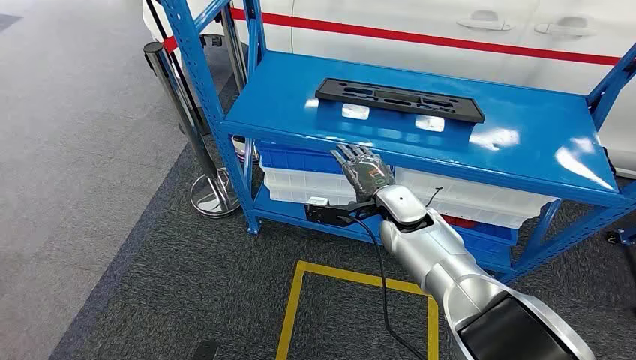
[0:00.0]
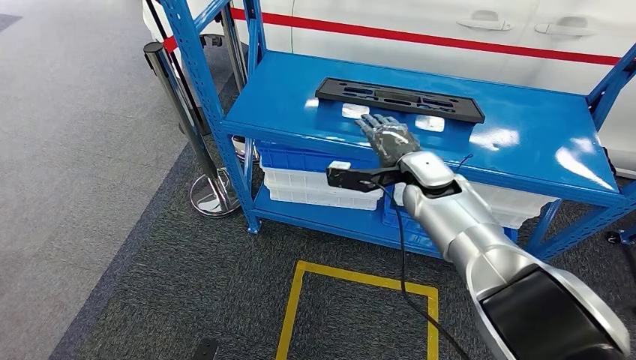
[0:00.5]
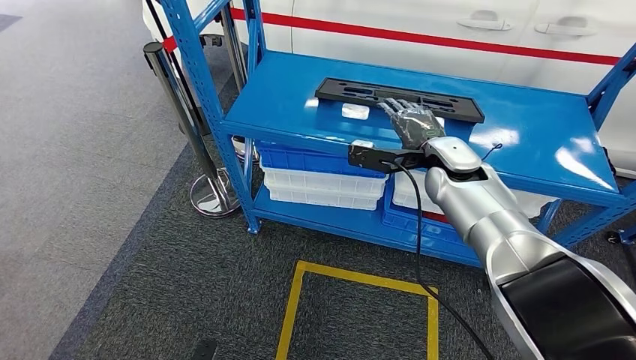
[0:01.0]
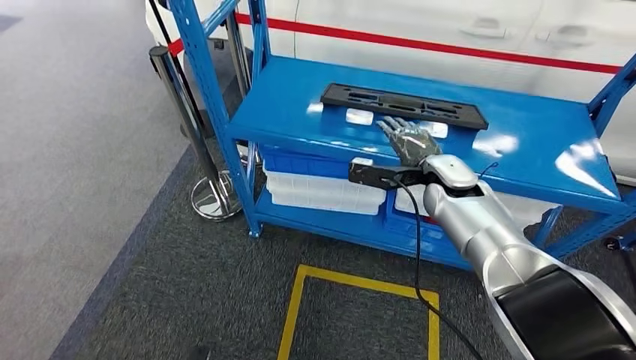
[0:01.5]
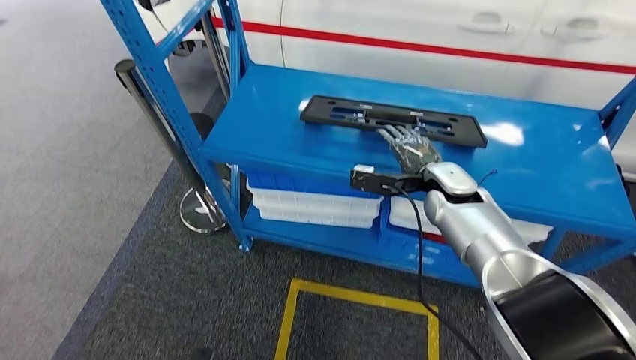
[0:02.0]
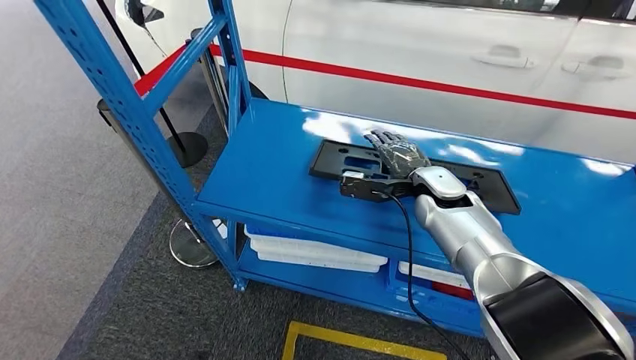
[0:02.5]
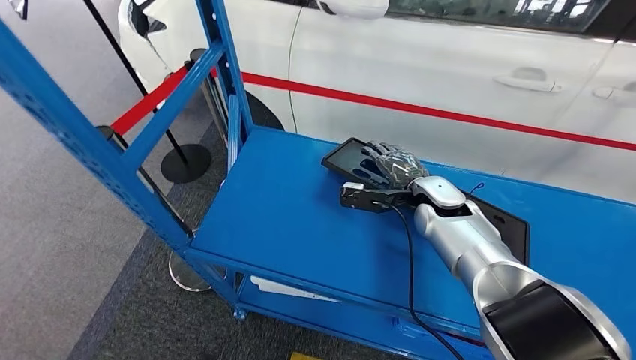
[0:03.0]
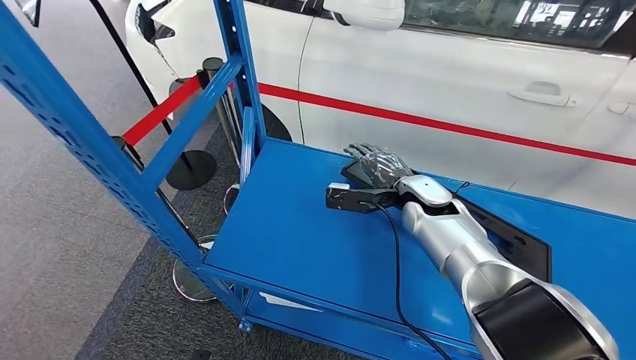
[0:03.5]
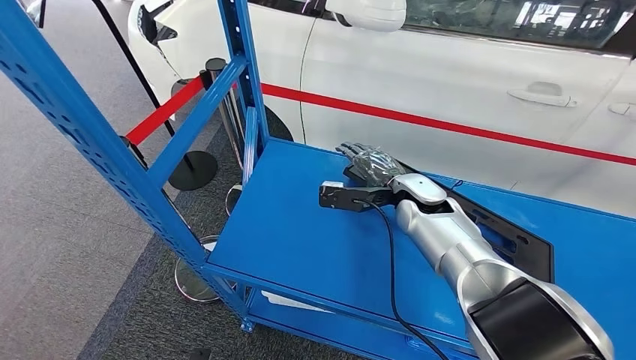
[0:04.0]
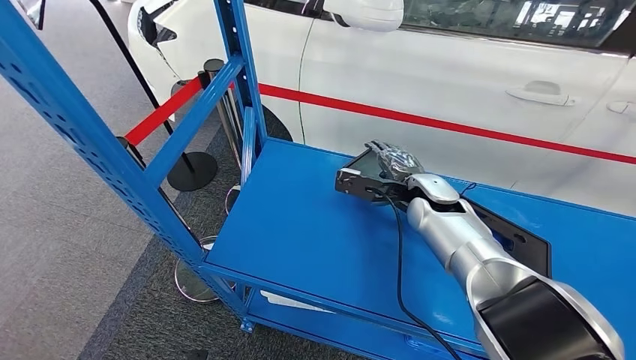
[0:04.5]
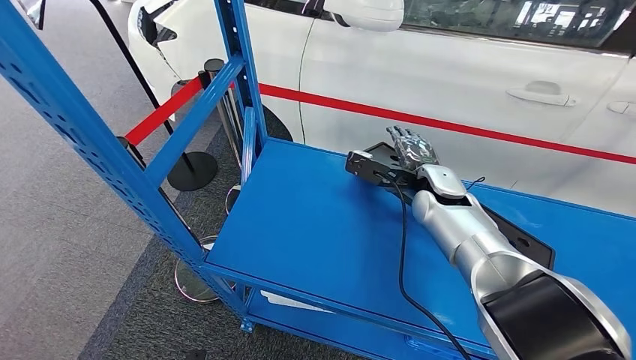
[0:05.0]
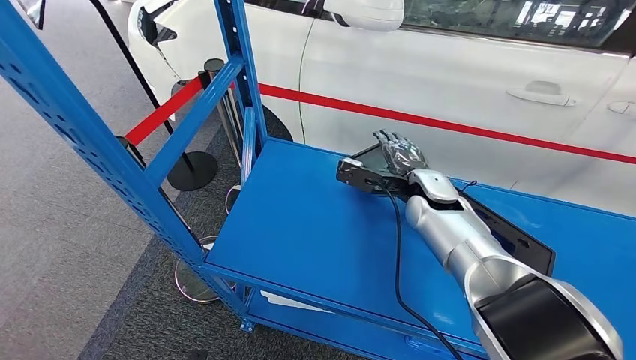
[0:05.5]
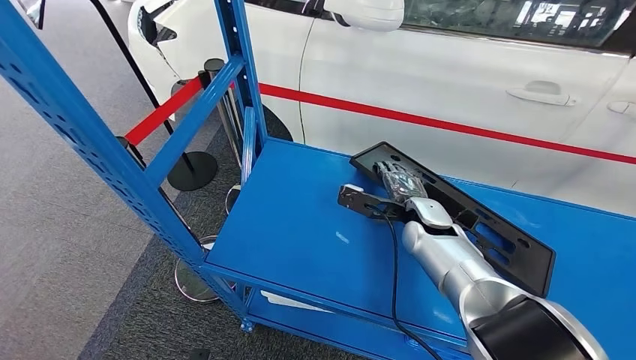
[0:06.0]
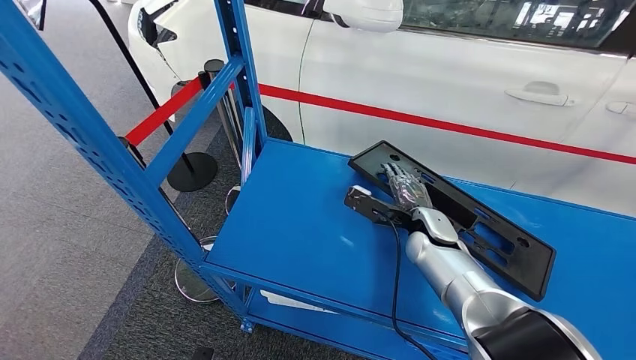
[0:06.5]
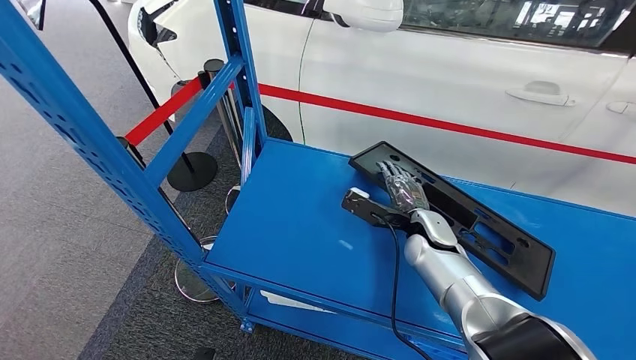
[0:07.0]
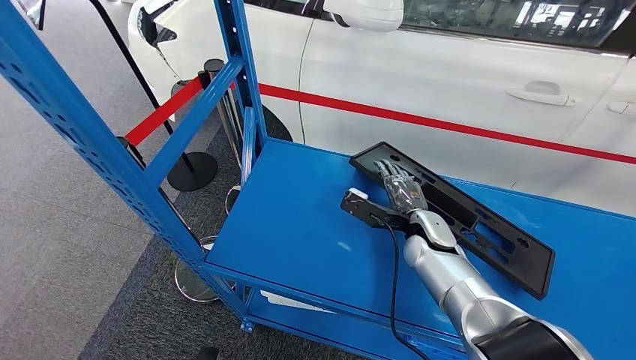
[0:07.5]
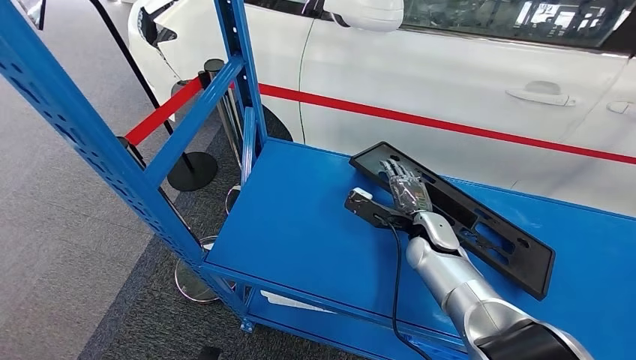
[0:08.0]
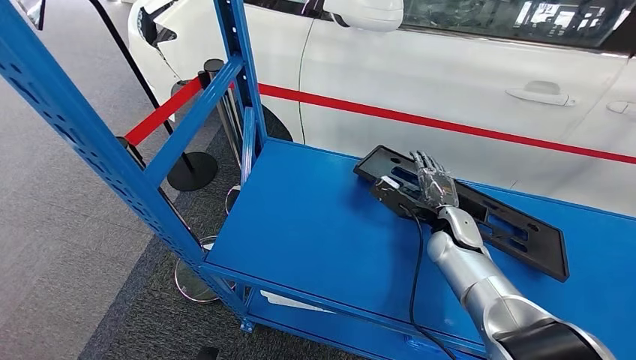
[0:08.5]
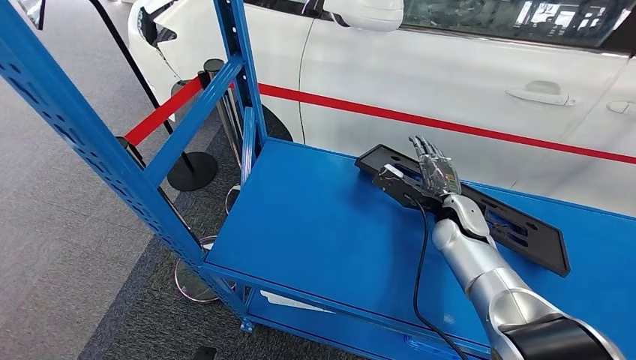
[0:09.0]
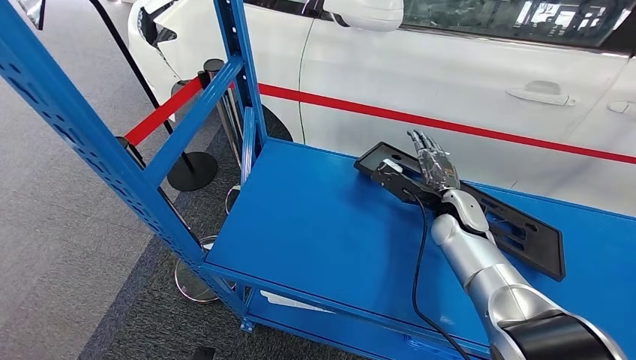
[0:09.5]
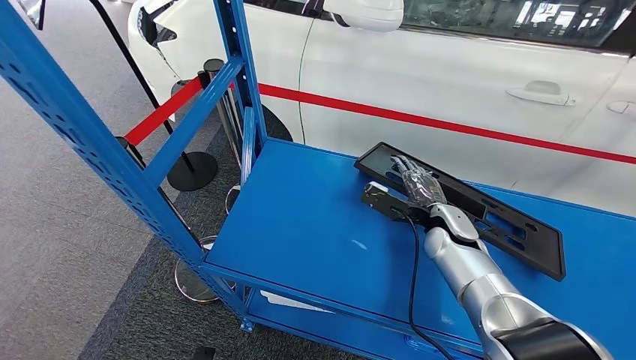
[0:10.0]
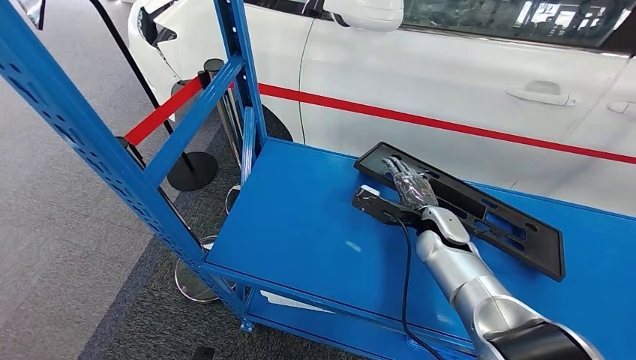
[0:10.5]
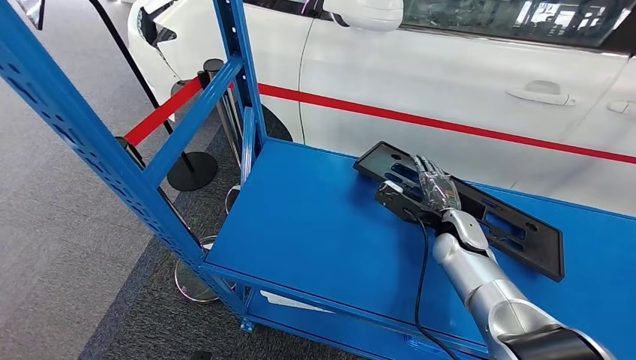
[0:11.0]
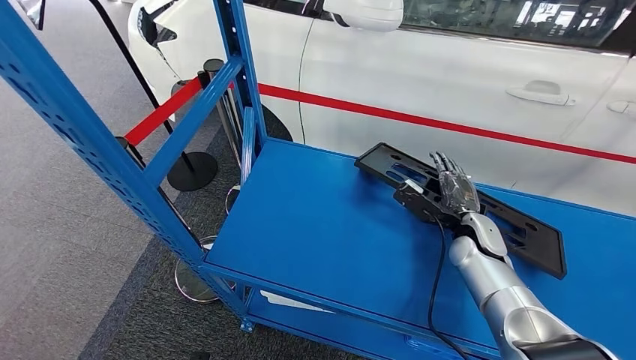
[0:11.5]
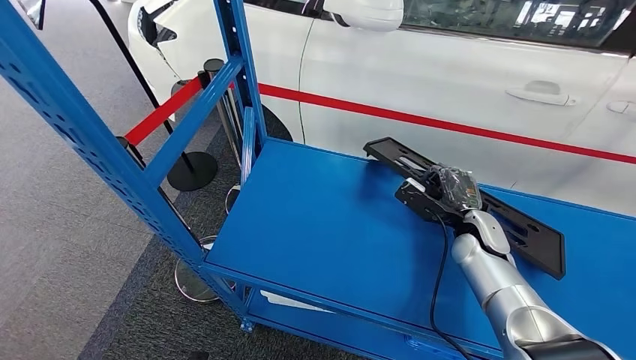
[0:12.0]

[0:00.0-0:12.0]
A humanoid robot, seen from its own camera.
Step, 0:00.0 to 0:04.0: Pick up the large material from the shelf.
0:04.0 to 0:06.0: The right hand moves roughly 5 cm.
0:06.0 to 0:08.0: The hands make only small movements.
0:08.0 to 0:10.0: The hands stay close to where they were, moving slightly.
0:10.0 to 0:12.0: The right hand heads to the right, covering approximately 5 cm.

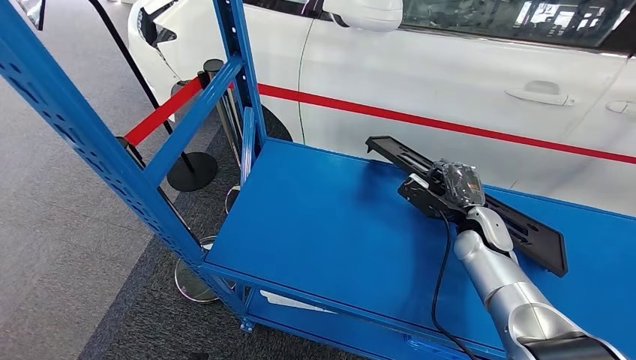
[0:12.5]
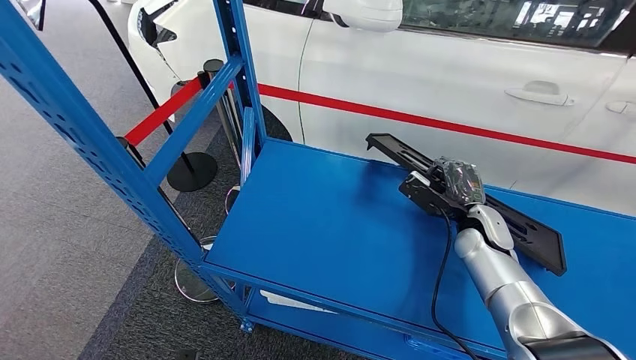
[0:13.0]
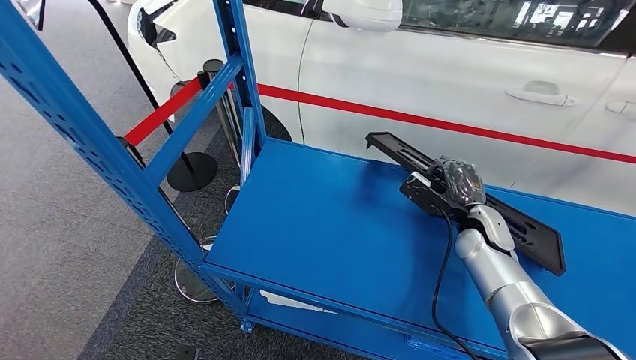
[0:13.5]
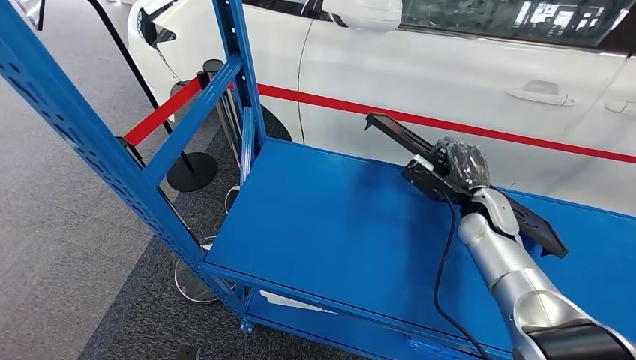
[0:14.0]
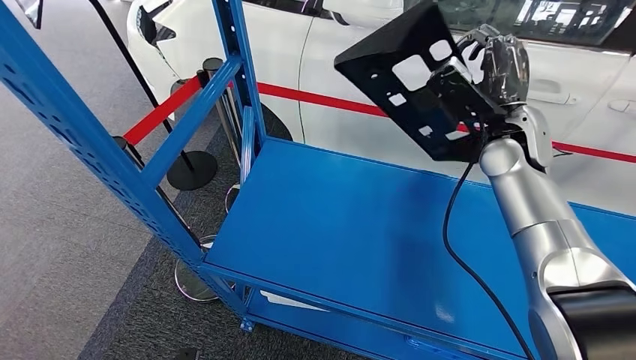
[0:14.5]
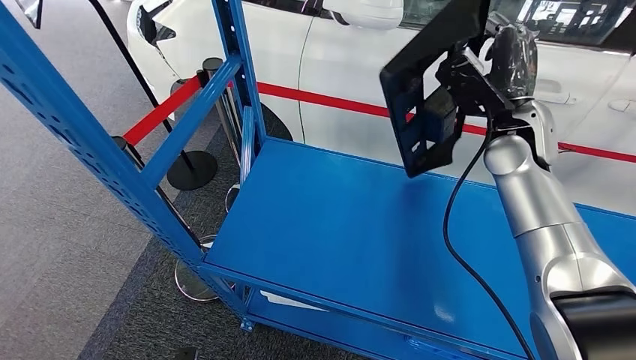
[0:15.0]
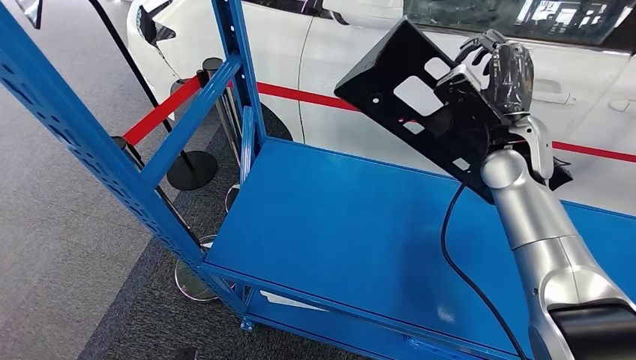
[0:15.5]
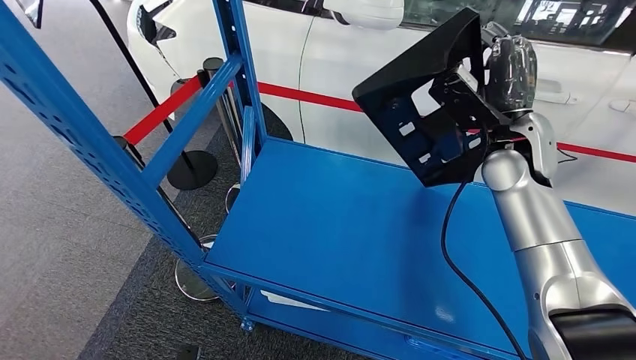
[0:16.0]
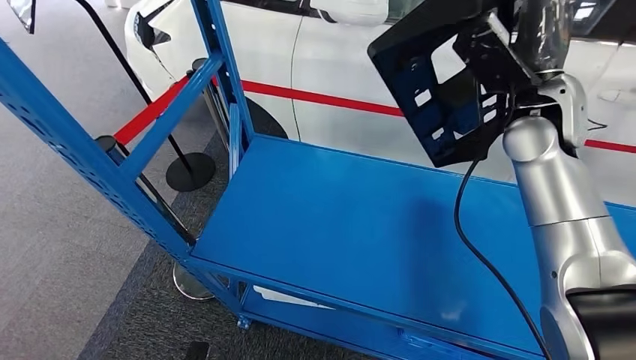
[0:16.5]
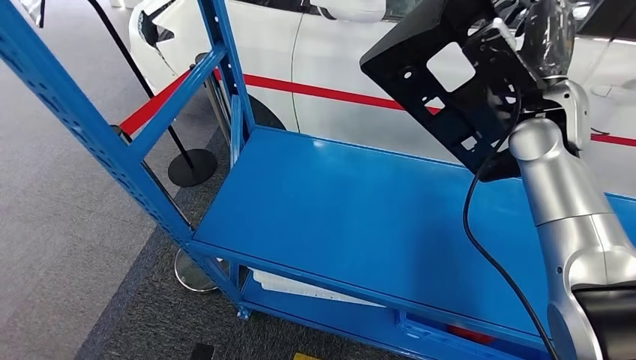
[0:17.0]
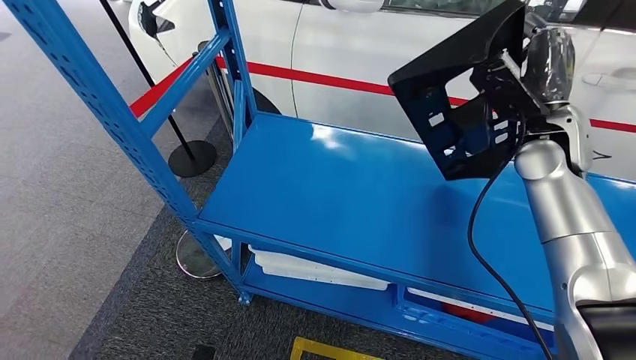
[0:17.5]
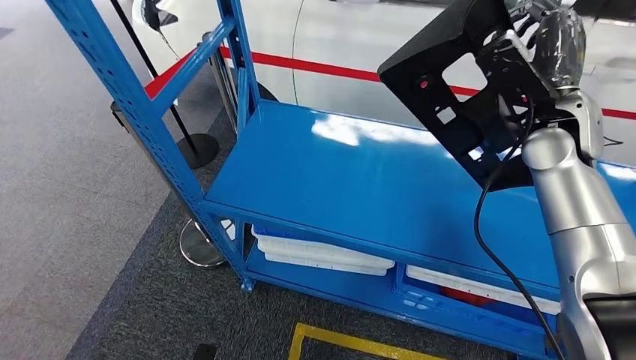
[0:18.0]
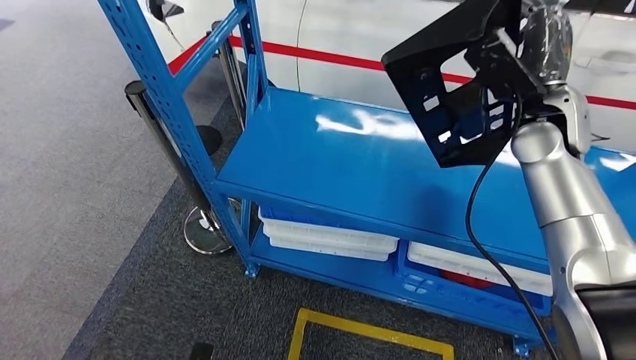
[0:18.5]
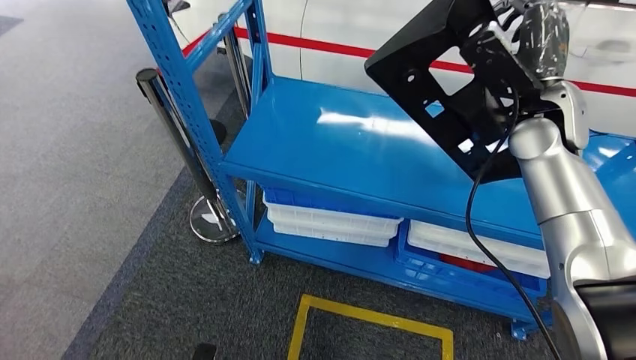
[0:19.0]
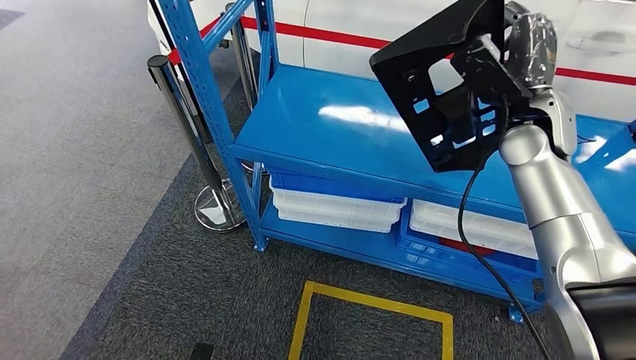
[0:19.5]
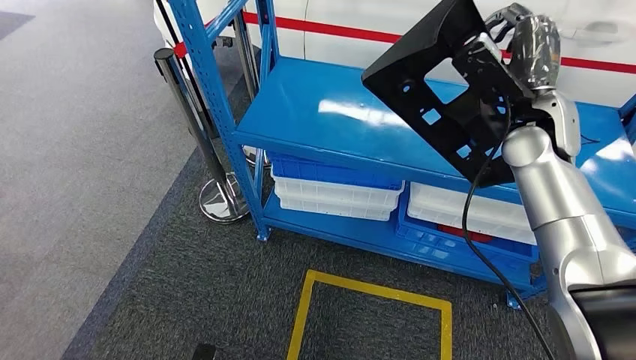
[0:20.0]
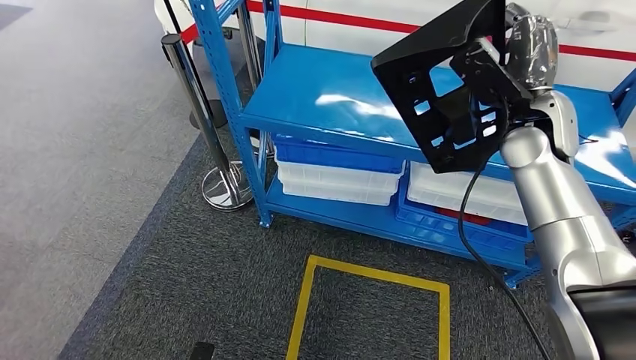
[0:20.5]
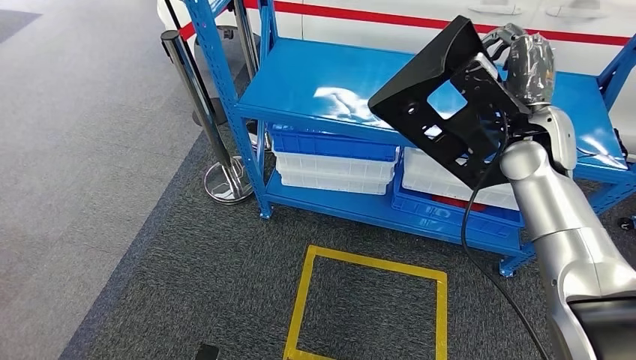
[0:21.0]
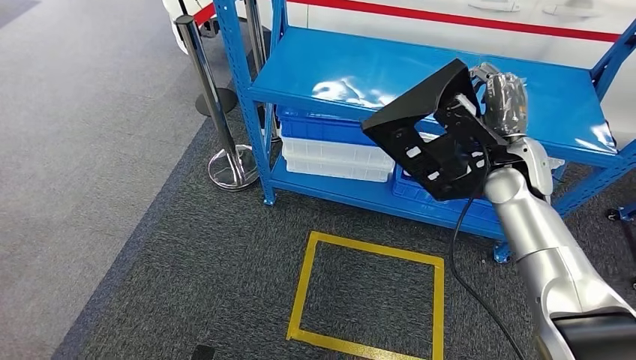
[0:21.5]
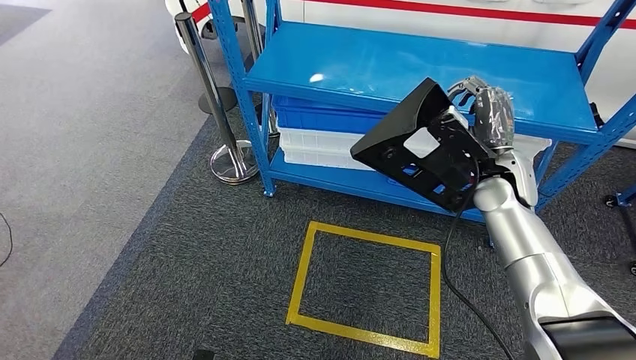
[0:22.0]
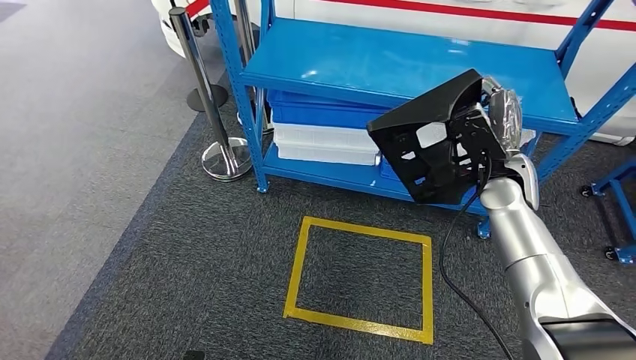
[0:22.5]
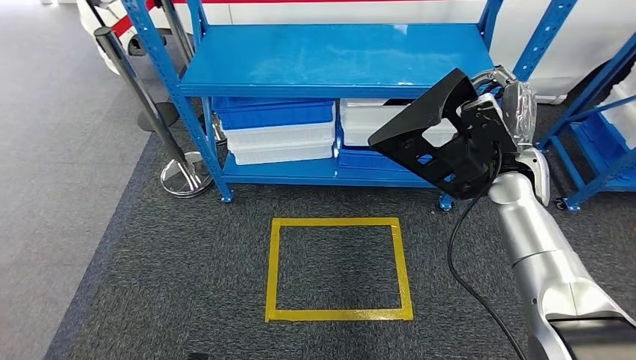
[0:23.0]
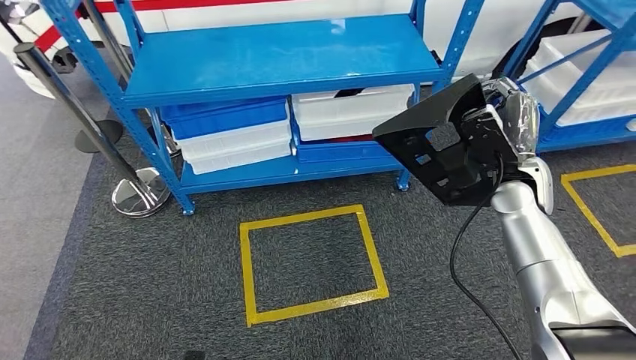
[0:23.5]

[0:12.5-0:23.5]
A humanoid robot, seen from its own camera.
0:14.5 to 0:16.0: The hands stay close to where they were, moving slightly.
